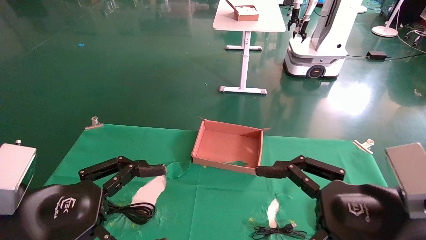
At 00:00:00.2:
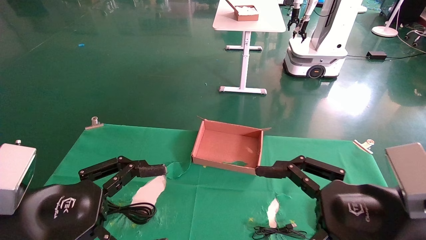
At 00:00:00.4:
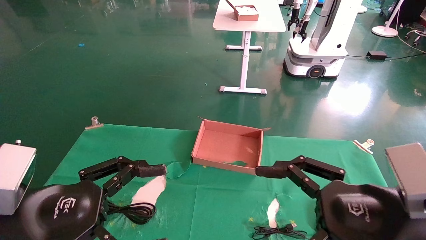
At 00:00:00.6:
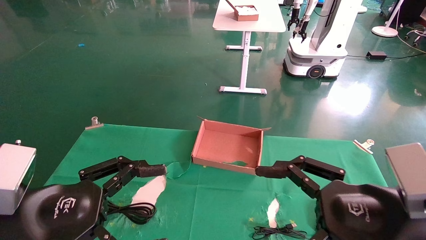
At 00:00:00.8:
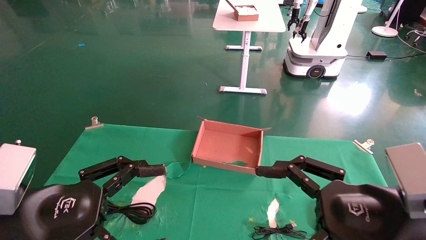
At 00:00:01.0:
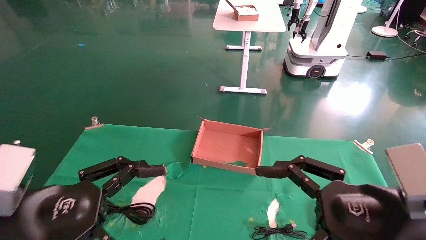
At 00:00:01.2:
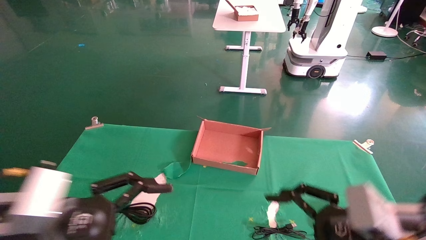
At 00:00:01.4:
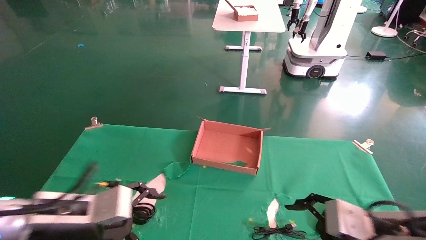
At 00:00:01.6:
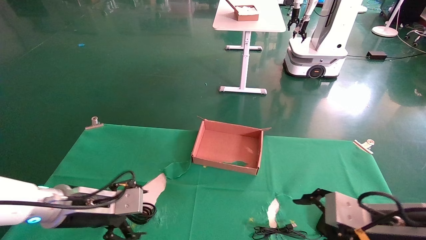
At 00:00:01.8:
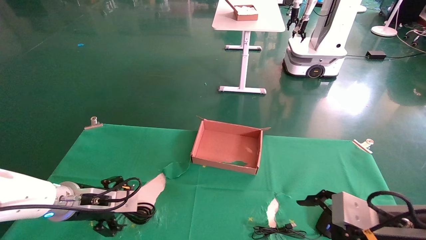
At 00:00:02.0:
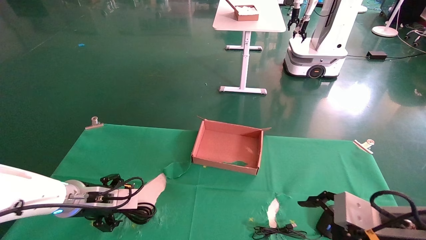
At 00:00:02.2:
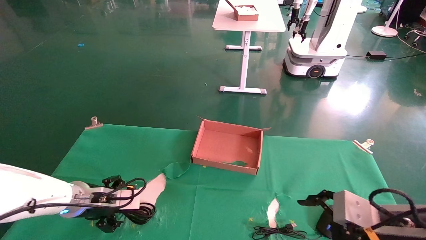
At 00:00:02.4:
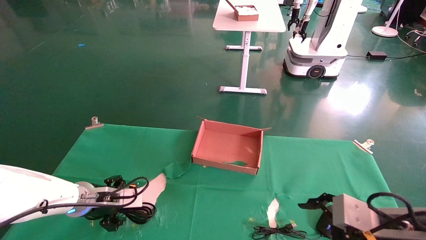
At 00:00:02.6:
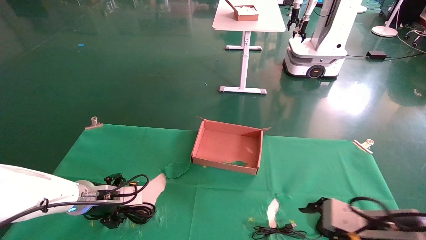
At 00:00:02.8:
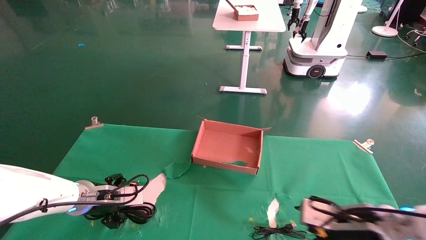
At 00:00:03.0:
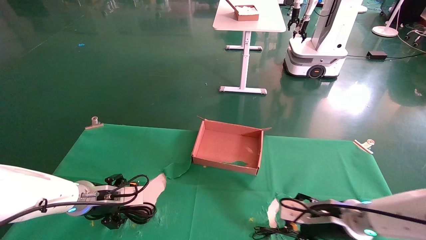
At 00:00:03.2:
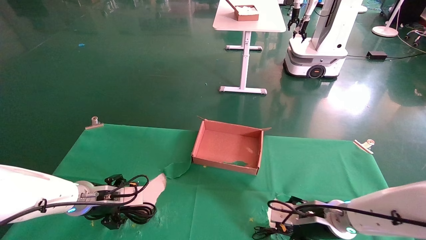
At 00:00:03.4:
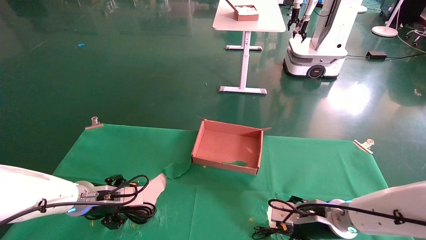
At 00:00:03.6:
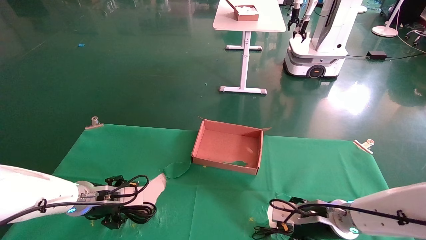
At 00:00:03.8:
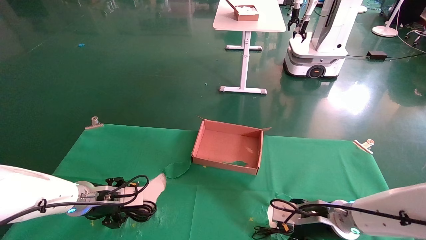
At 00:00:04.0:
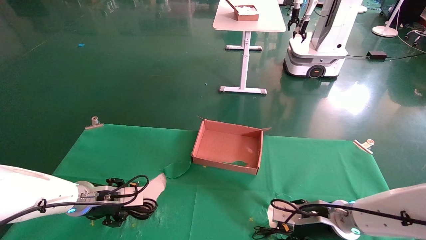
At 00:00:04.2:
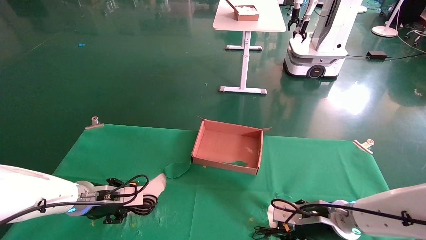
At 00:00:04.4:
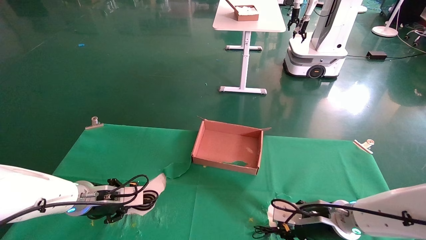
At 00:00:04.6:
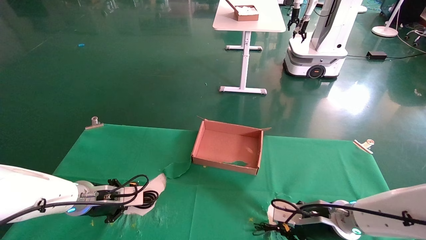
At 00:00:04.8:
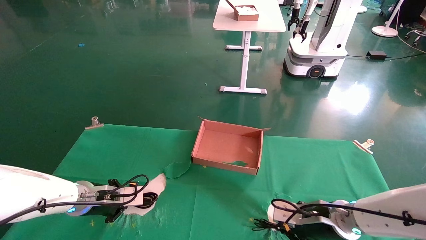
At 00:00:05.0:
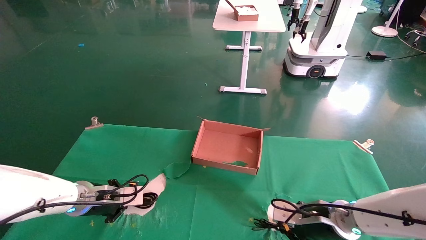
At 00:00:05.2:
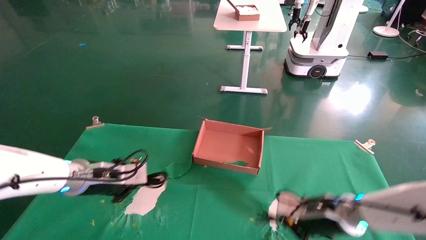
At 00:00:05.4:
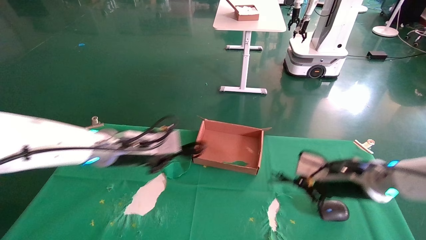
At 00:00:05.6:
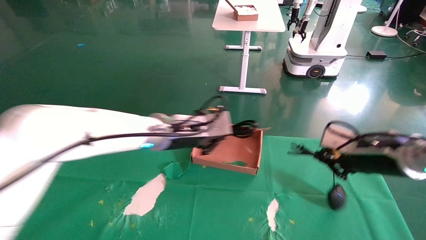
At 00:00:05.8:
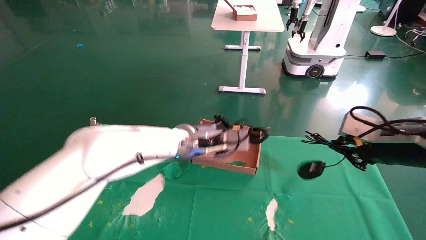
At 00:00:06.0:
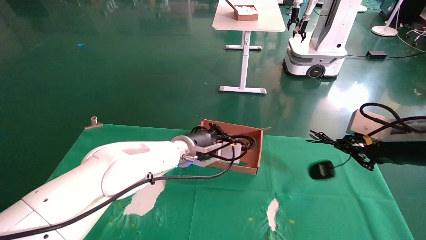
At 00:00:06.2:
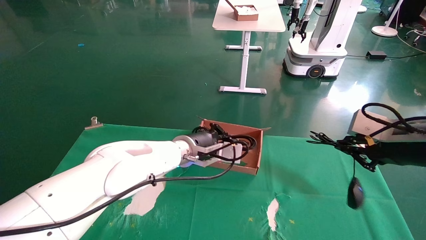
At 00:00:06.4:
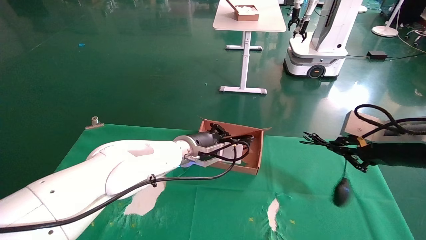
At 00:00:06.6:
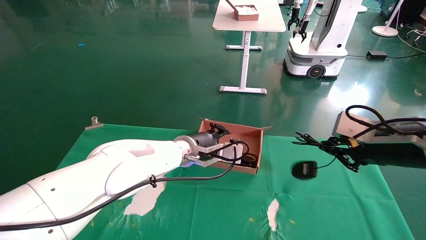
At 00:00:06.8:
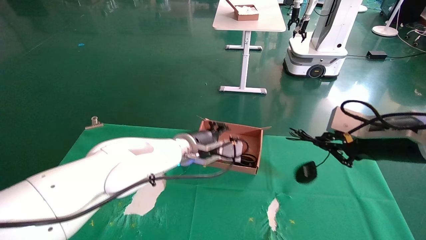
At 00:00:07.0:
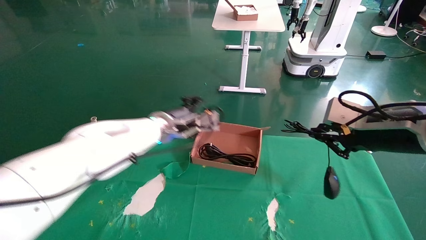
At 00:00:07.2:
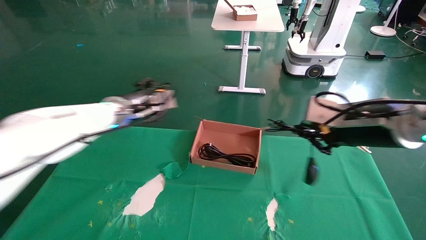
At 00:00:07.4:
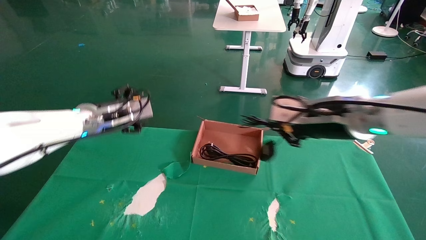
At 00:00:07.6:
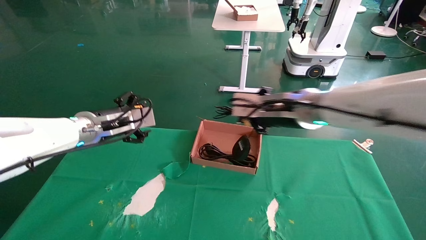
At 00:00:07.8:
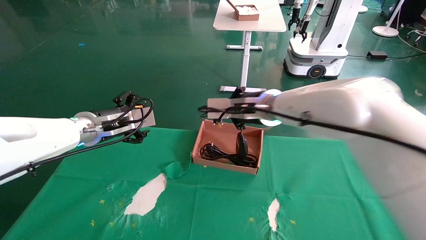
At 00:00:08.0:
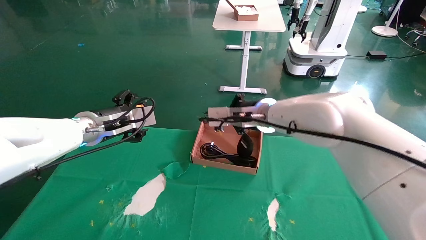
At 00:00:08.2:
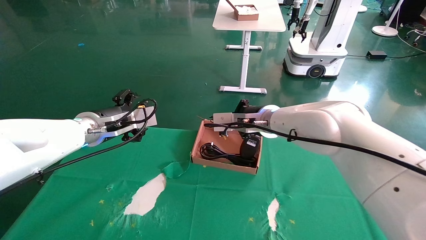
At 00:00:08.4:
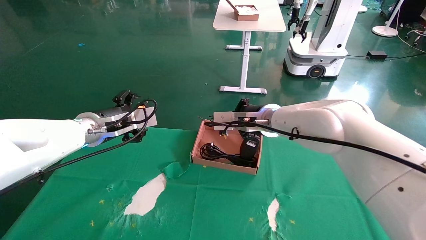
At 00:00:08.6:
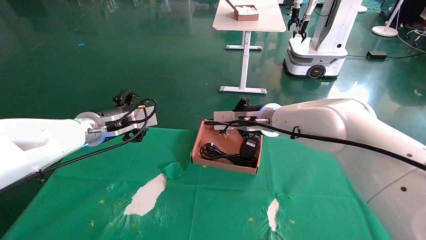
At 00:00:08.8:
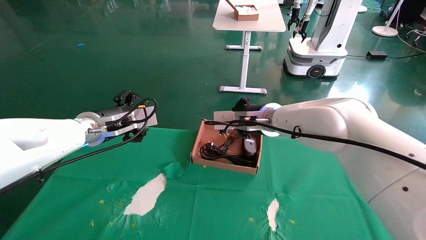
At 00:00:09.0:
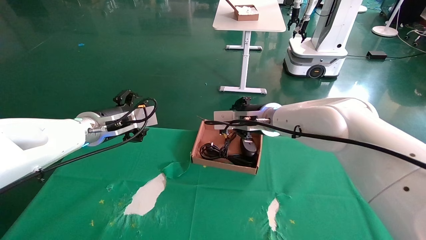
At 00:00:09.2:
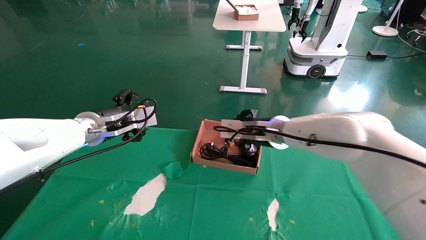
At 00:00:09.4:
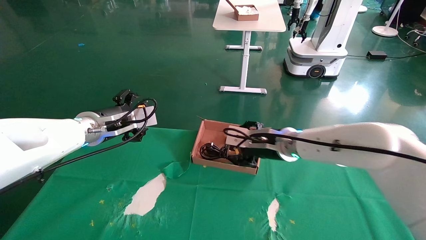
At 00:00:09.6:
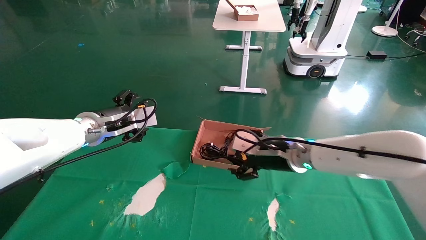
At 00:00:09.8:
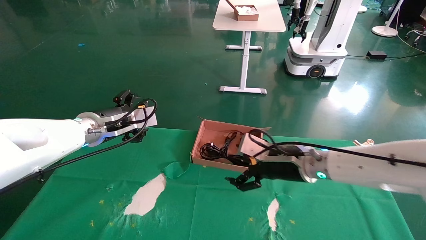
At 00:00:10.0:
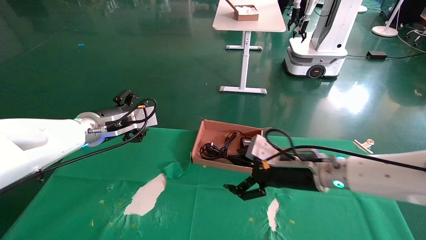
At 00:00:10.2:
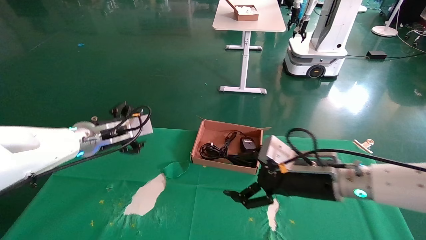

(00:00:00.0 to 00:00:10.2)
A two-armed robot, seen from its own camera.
Step, 00:00:01.0 - 00:00:05.2: Grab and lift both the mouse and power cord from the accessory packaging area at the same time.
Step, 00:00:05.4 - 00:00:09.6: Place the mouse and power cord into the box.
00:00:00.0 - 00:00:01.4: The right gripper heads downward and forward, covering about 10 cm; the left gripper moves forward and downward, some 10 cm.
00:00:01.4 - 00:00:03.0: The right gripper shifts about 15 cm forward and downward; the left gripper shifts approximately 10 cm forward.
00:00:03.0 - 00:00:04.4: The left gripper closes. Meanwhile the right gripper closes its fingers.
00:00:04.4 - 00:00:05.8: The right gripper is displaced upward and to the right by about 20 cm, and closes up; the left gripper shifts about 25 cm to the right and upward.
00:00:05.8 - 00:00:07.2: The left gripper moves to the left and upward, approximately 15 cm, and opens its fingers, while the right gripper goes some 10 cm to the left.
00:00:07.2 - 00:00:08.8: The right gripper is displaced to the left and forward by approximately 20 cm, while the left gripper shifts by approximately 5 cm.
00:00:08.8 - 00:00:10.2: The right gripper shifts approximately 20 cm backward, to the right and downward, and opens its fingers.

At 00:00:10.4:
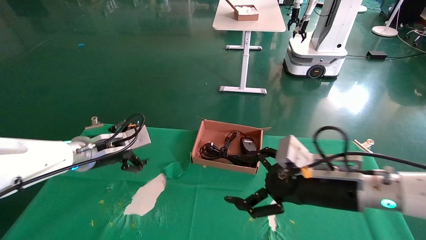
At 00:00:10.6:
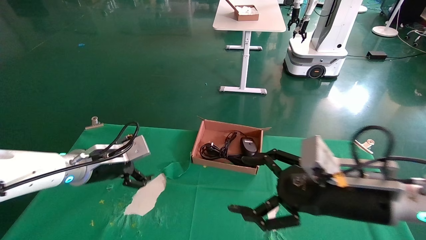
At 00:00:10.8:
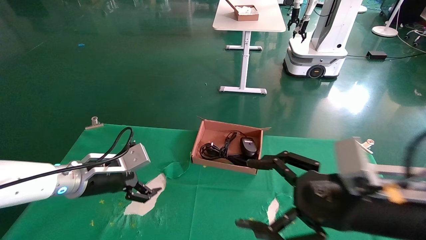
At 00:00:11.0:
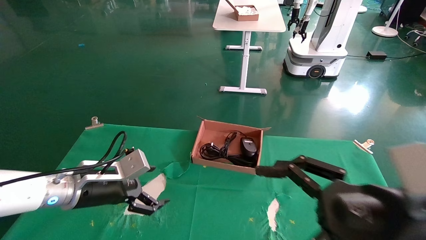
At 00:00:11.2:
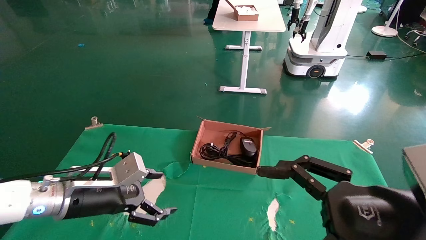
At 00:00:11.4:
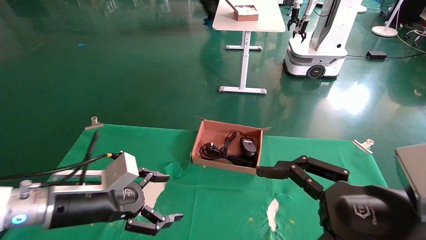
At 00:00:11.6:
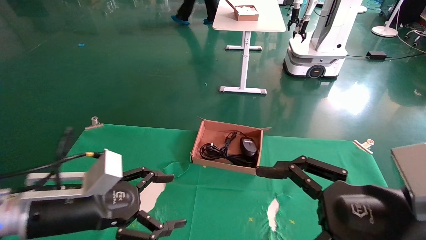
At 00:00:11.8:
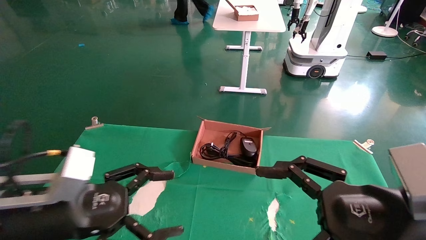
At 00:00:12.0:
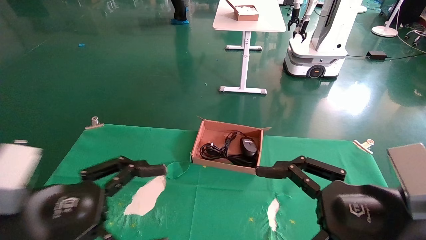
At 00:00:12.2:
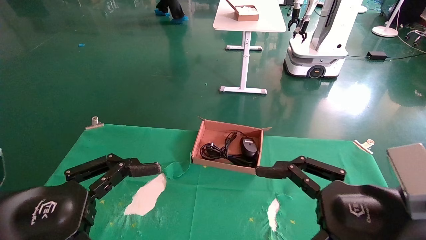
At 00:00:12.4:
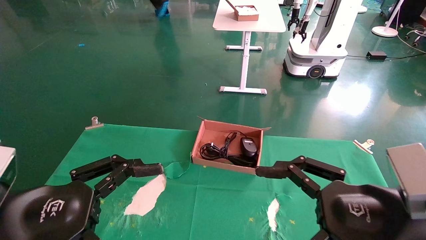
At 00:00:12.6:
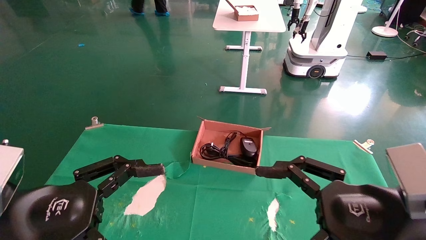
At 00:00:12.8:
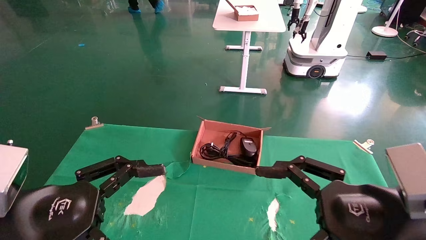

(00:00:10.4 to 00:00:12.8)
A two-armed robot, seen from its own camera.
00:00:10.4 - 00:00:11.6: The two grippers go roughly 15 cm backward.
00:00:11.6 - 00:00:12.8: The left gripper is displaced backward by some 10 cm.
